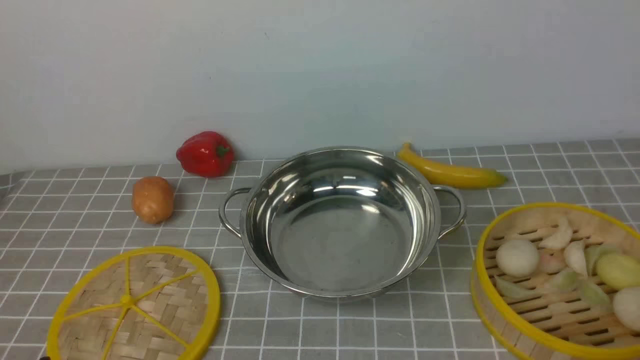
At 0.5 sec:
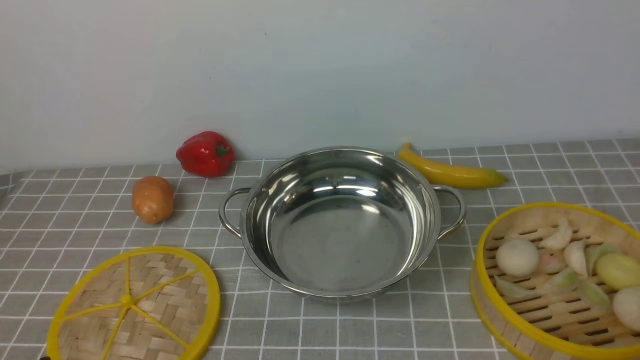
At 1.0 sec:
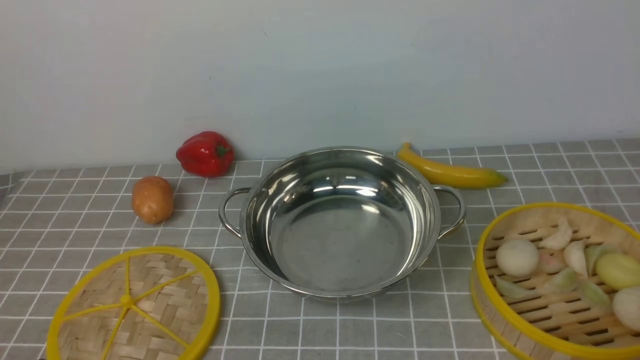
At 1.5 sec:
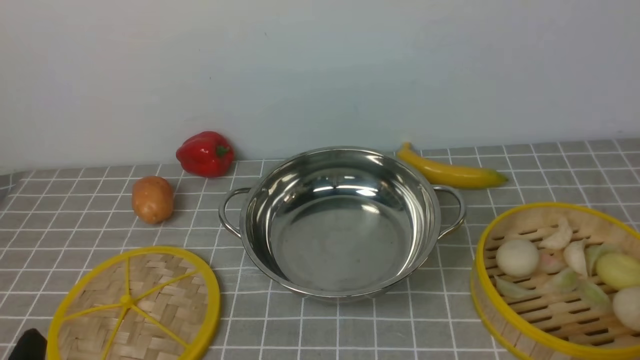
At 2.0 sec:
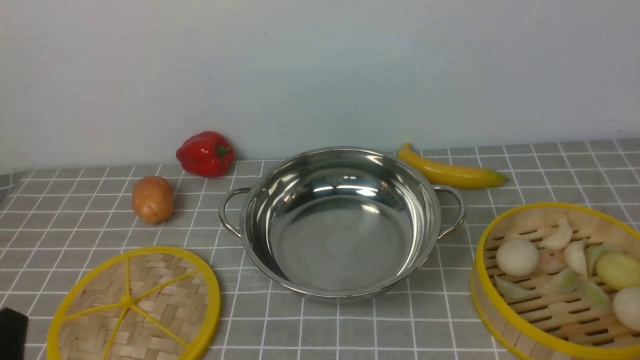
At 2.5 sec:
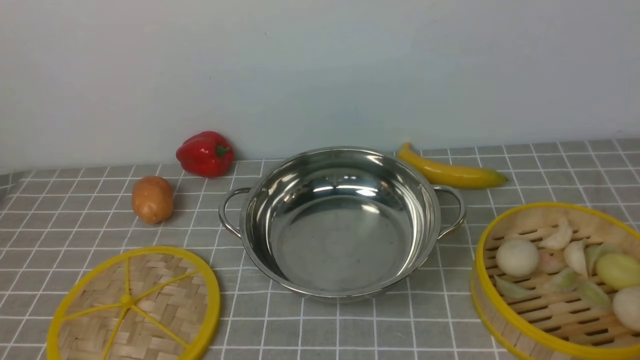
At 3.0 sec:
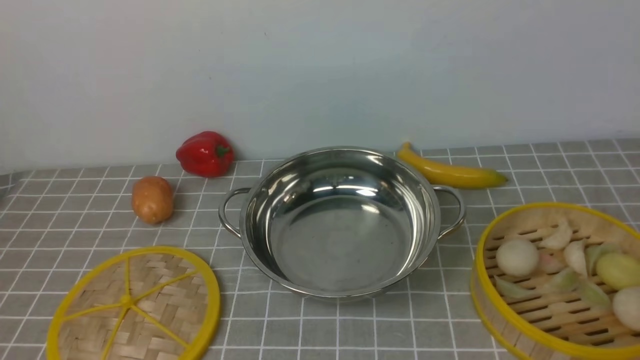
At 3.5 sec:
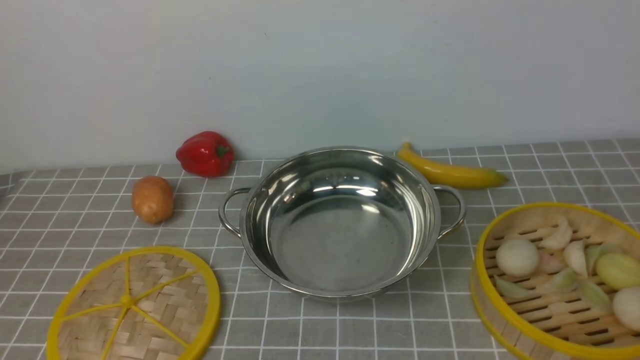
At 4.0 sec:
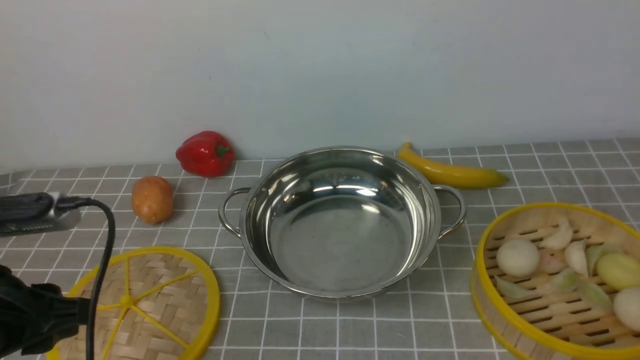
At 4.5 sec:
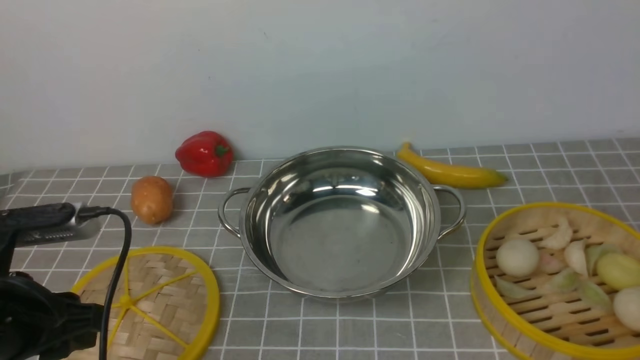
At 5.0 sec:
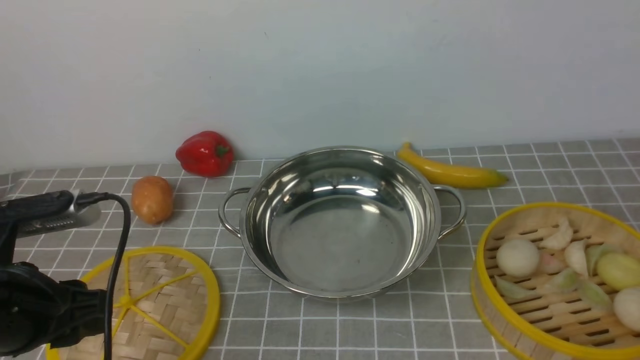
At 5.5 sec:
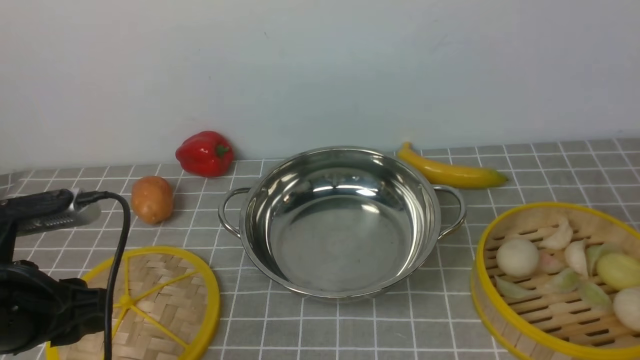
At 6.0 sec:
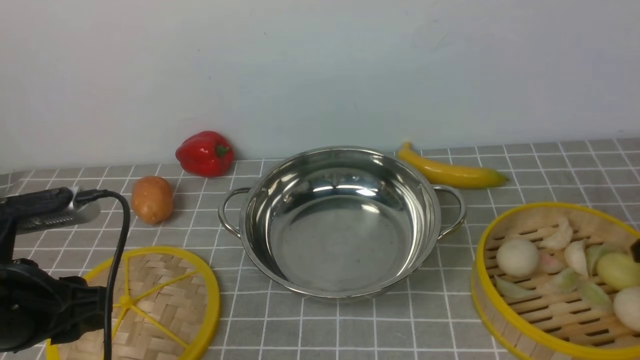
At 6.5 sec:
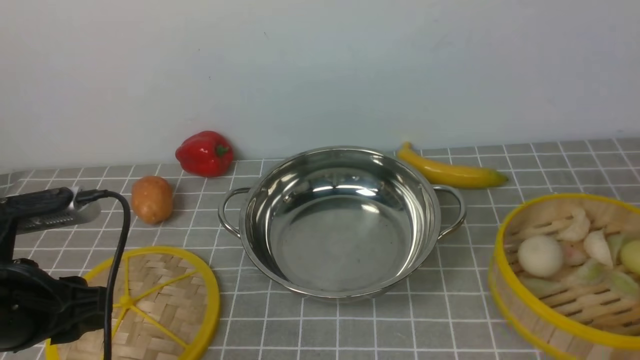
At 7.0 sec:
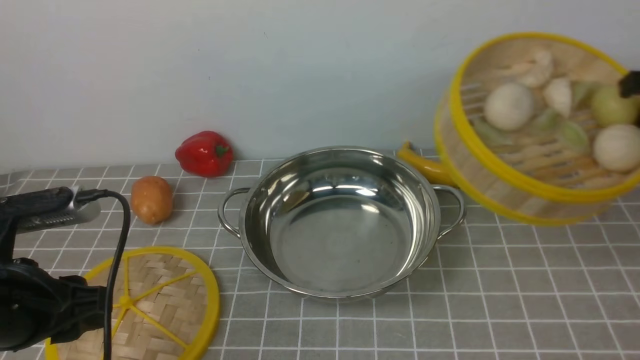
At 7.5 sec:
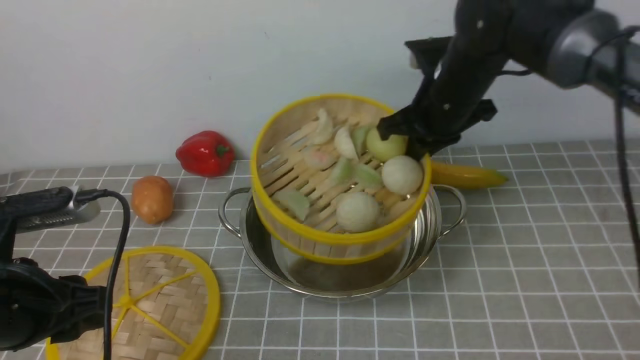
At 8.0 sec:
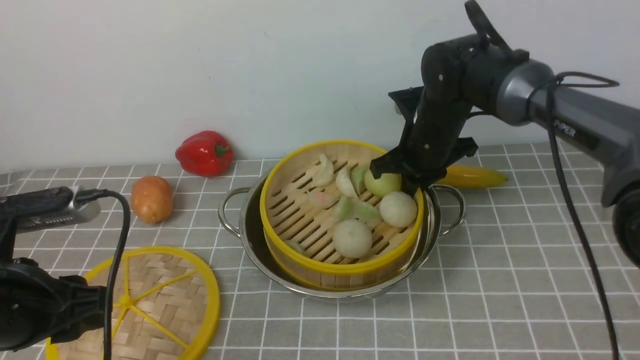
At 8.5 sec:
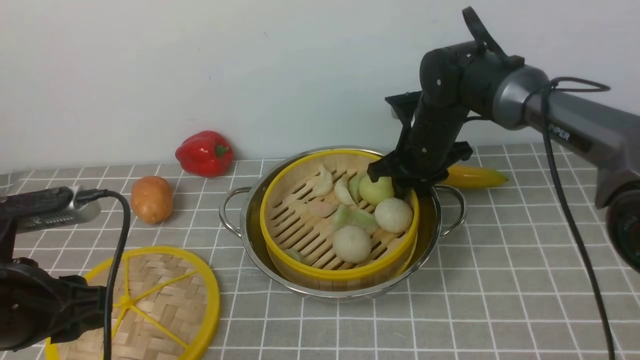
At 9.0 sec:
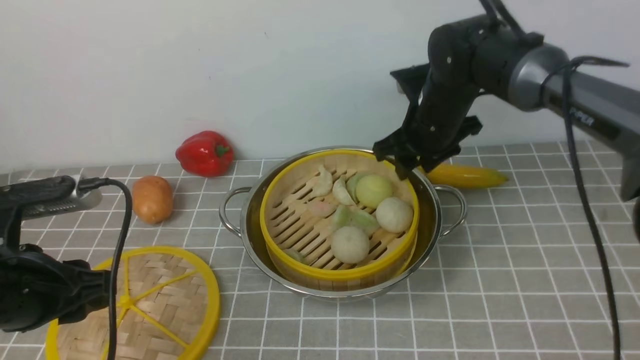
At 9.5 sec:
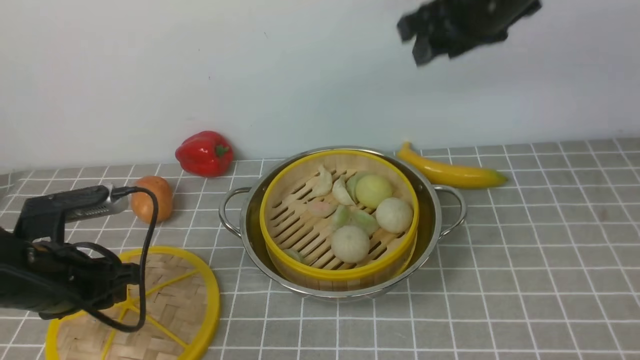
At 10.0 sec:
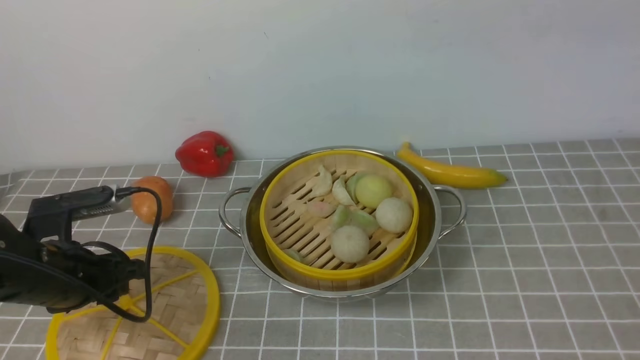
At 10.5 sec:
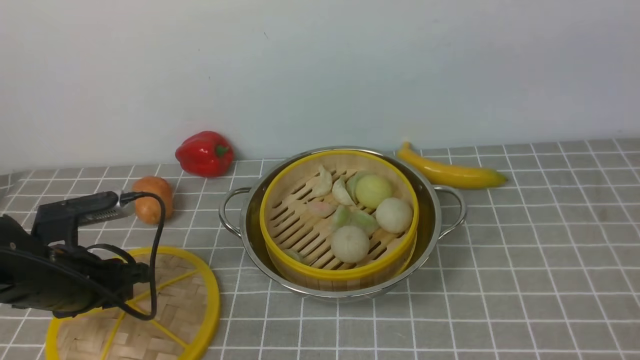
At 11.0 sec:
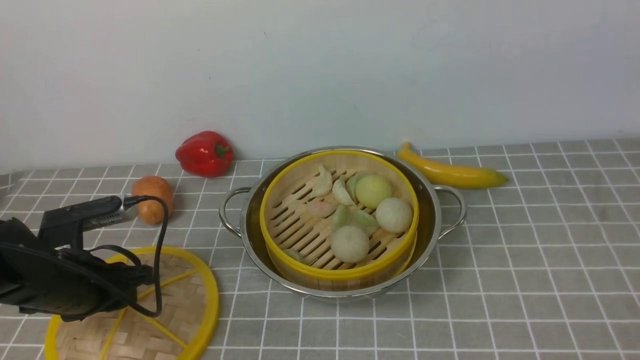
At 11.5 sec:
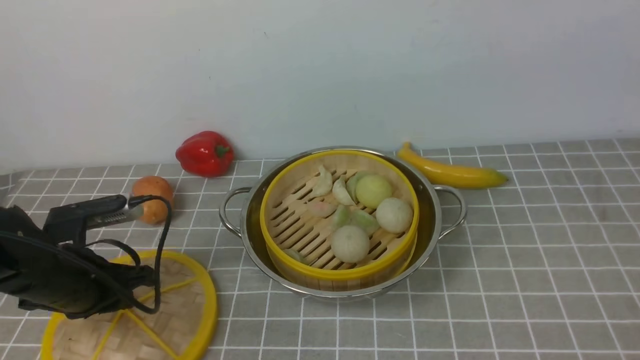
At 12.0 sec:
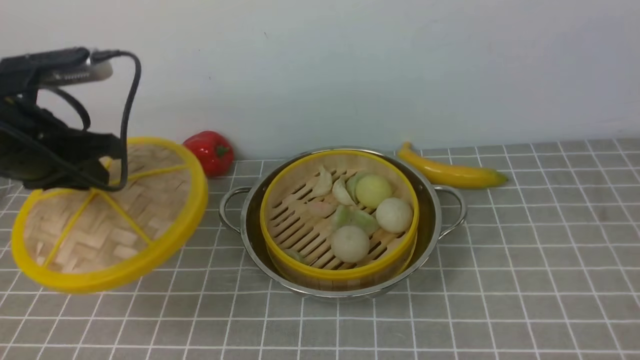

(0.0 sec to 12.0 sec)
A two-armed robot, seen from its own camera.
Task of the whole recording: place the steamer in the pot on the grey tablecloth, and put the lid on the steamer.
Step, 0.0 sec - 6.0 sec: use the right arm to lift the steamer closest to it.
Step, 6.5 sec - 9.0 sec: use the right arm to put the steamer into the iron steamer pot in the middle.
Step, 9.5 sec - 11.5 sec: use the left arm to lift the lid of the steamer.
2.0 sec - 4.0 sec: The left gripper shifts some 15 cm forward and upward, and closes.
6.0 sec - 8.0 sec: The right gripper shifts approximately 30 cm to the left and forward.
8.0 sec - 10.0 sec: The right gripper goes approximately 40 cm upward and backward, and opens up, while the left gripper heads downward and forward, covering some 10 cm.
10.0 sec - 12.0 sec: The left gripper goes some 15 cm upward and forward; the right gripper travels backward and to the right by roughly 20 cm.

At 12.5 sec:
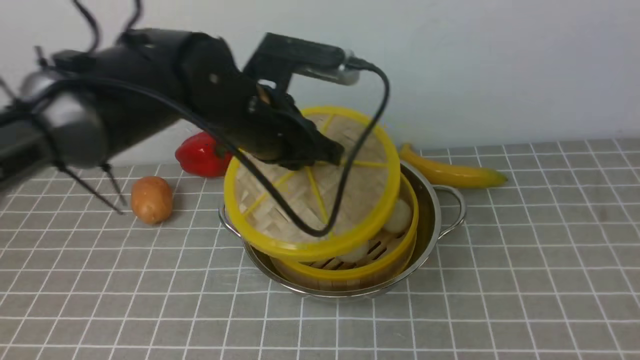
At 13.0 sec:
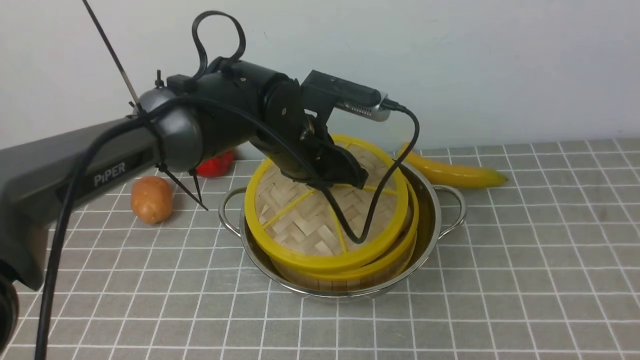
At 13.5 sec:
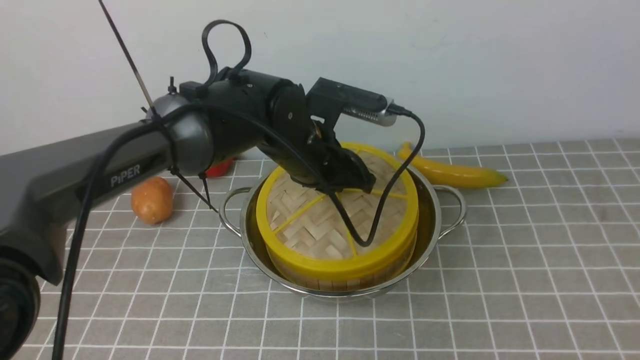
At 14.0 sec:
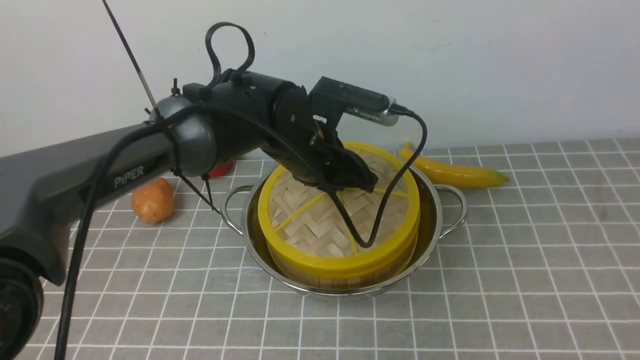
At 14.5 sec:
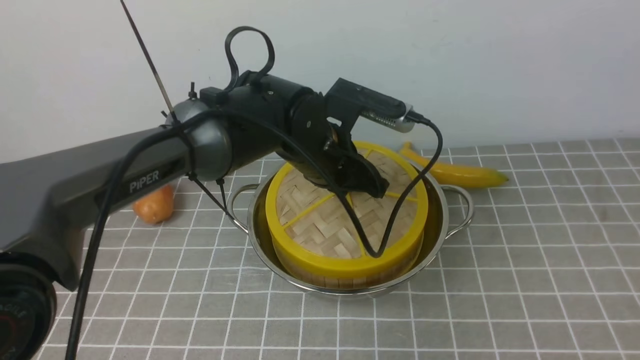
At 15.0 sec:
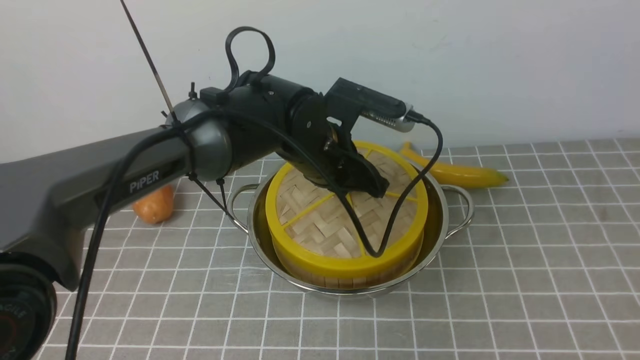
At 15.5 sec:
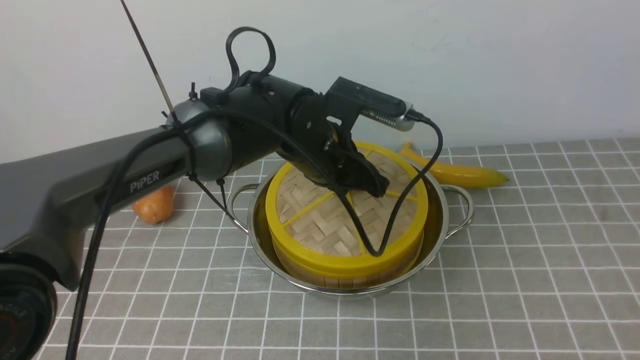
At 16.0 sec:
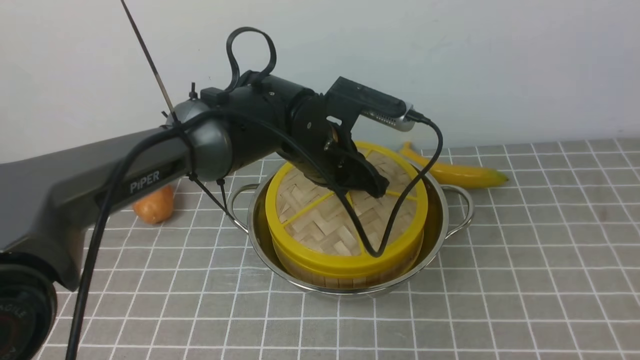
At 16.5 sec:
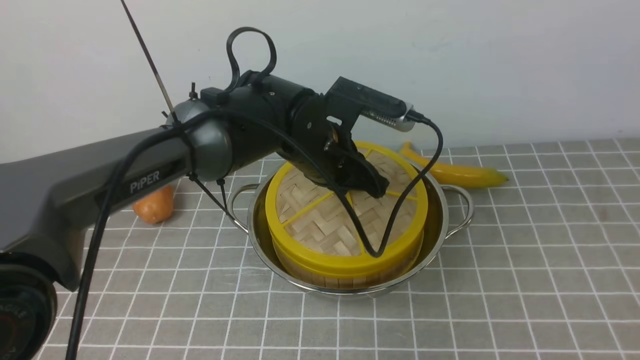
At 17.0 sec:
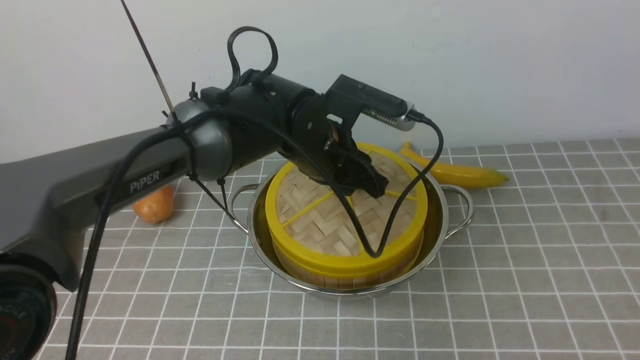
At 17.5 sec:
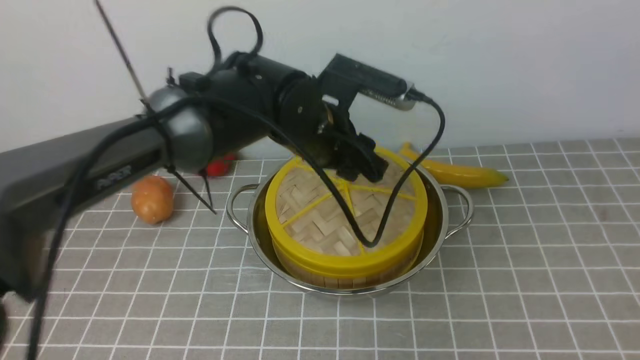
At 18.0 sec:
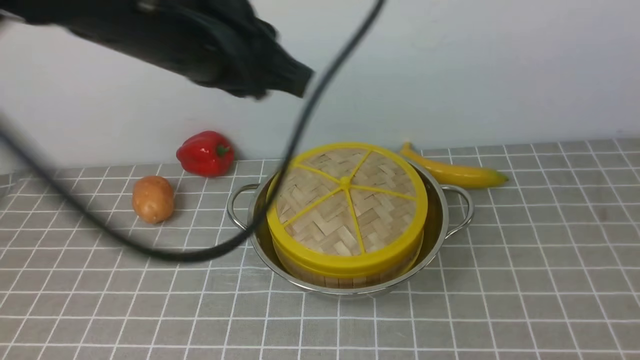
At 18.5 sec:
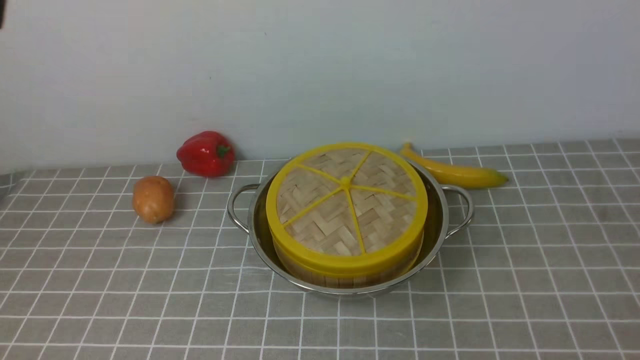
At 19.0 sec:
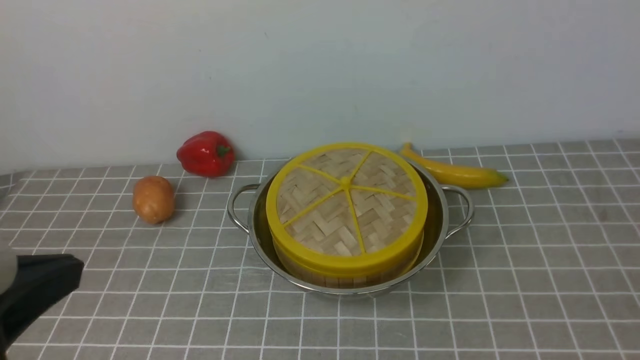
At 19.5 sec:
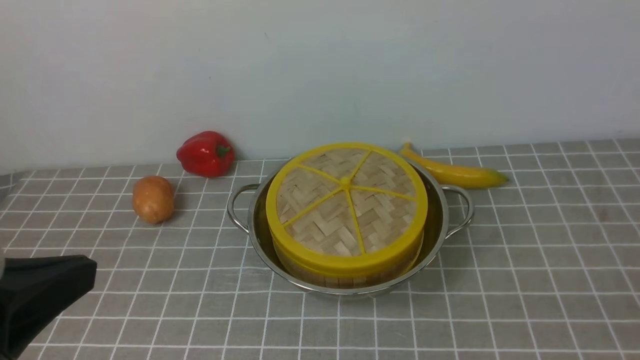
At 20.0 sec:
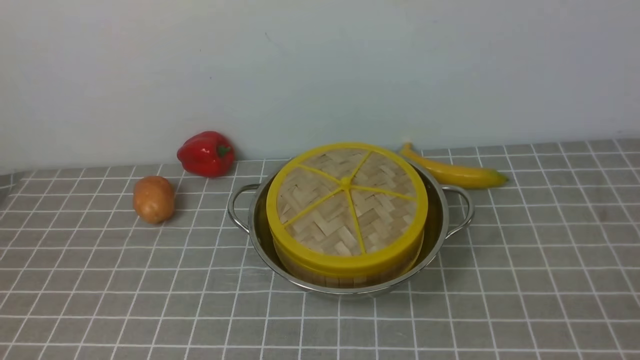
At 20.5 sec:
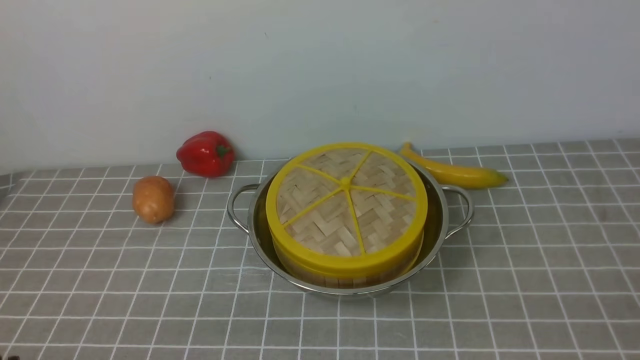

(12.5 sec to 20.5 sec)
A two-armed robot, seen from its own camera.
Task of the whole recording: place the steamer in the pot on the grey tablecloth, and put the lid on the steamer.
Step, 12.5 sec - 17.5 sec: use the left arm to place the steamer lid on the steamer.
12.5 sec - 14.5 sec: The left gripper is displaced to the right and downward by approximately 10 cm.
14.5 sec - 16.5 sec: Both grippers stay about where they are.
16.5 sec - 18.5 sec: The right gripper travels downward by some 20 cm, and closes, while the left gripper heads backward, upward and to the left, covering approximately 40 cm, and opens and closes again.
